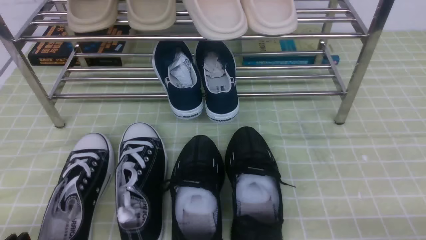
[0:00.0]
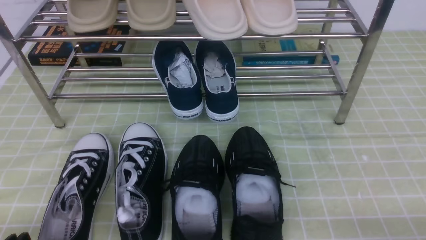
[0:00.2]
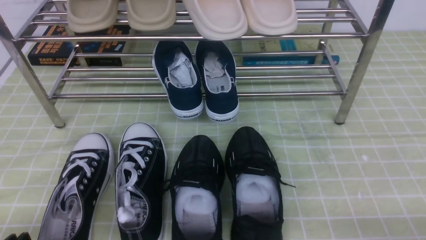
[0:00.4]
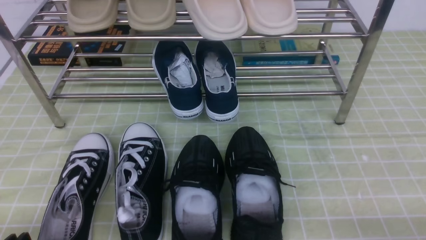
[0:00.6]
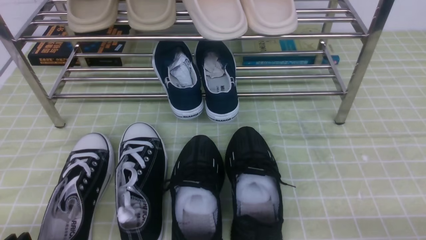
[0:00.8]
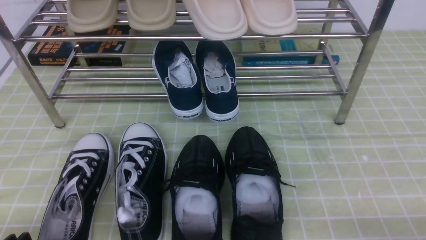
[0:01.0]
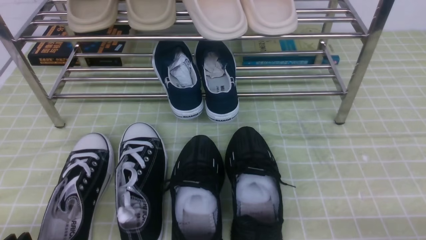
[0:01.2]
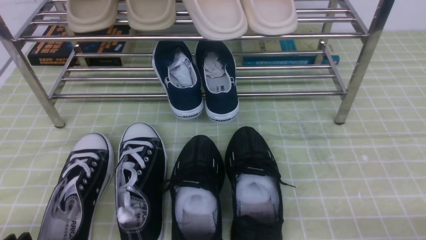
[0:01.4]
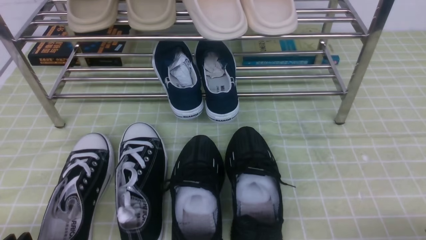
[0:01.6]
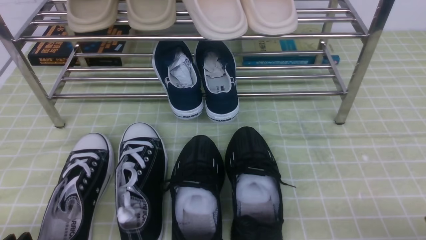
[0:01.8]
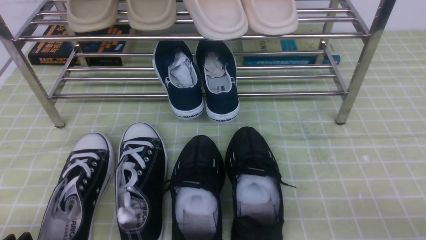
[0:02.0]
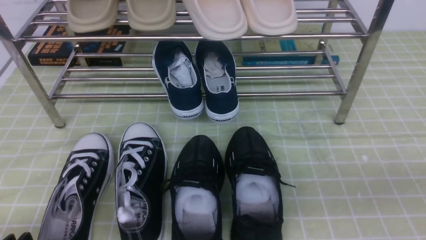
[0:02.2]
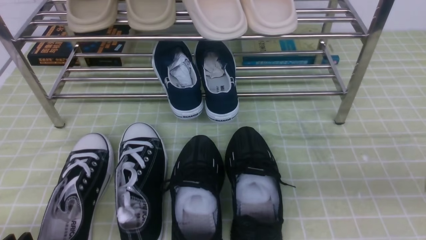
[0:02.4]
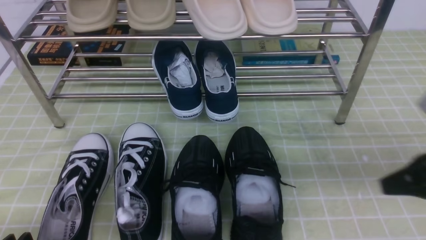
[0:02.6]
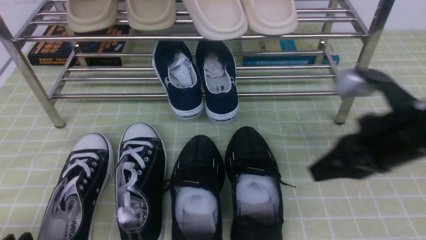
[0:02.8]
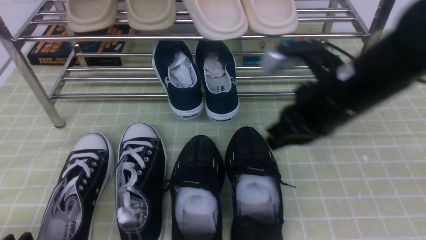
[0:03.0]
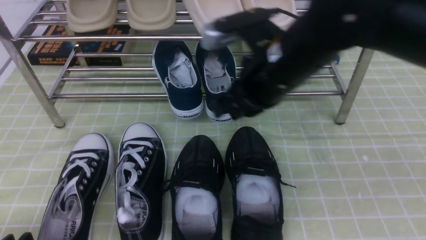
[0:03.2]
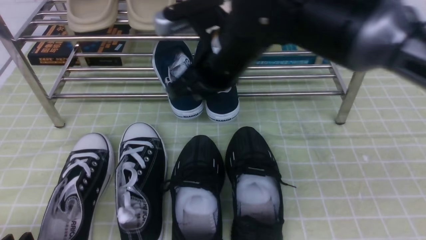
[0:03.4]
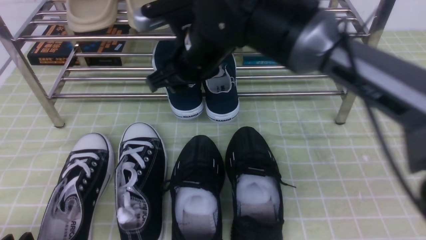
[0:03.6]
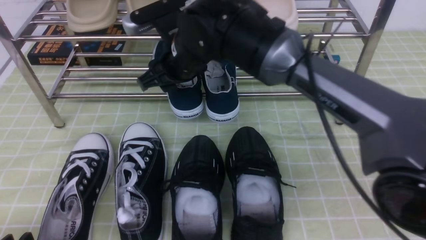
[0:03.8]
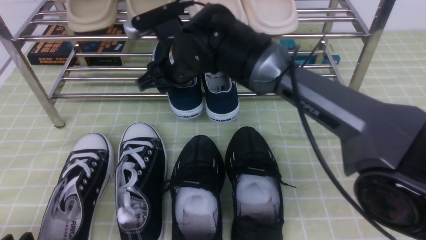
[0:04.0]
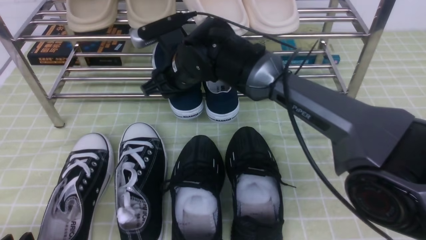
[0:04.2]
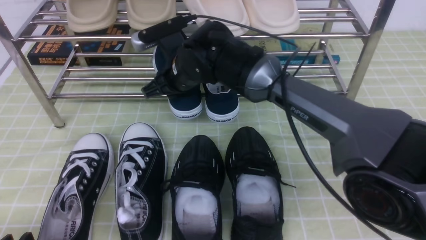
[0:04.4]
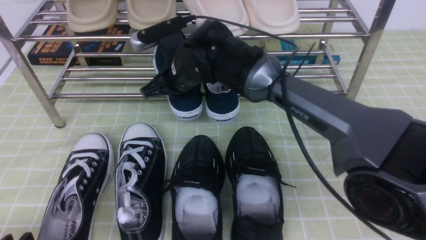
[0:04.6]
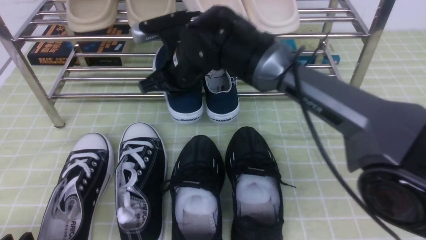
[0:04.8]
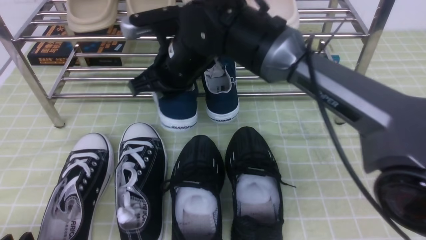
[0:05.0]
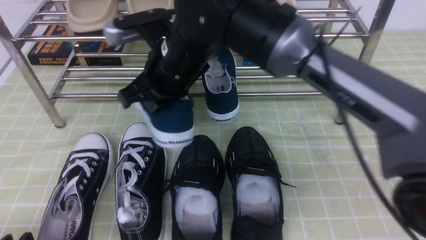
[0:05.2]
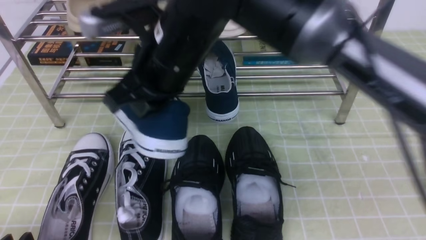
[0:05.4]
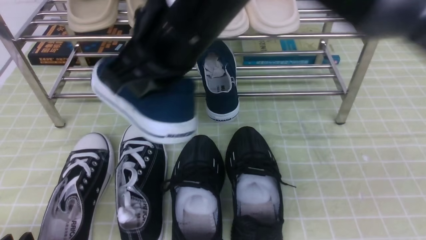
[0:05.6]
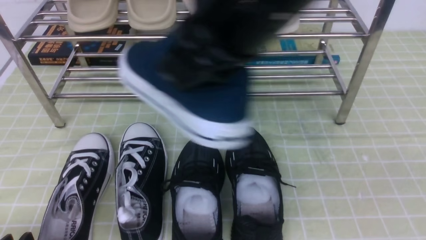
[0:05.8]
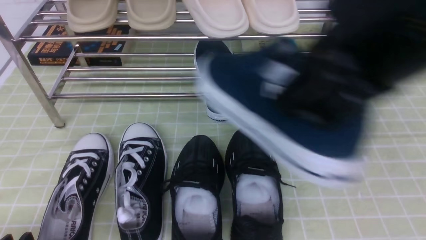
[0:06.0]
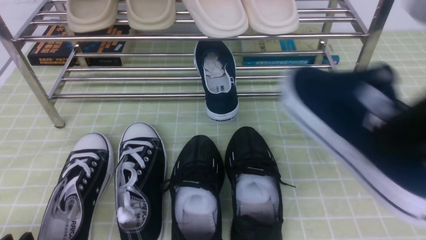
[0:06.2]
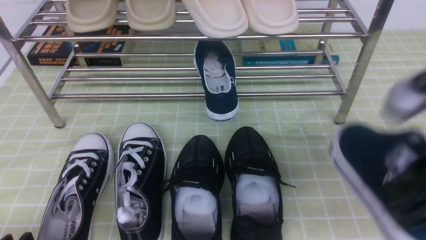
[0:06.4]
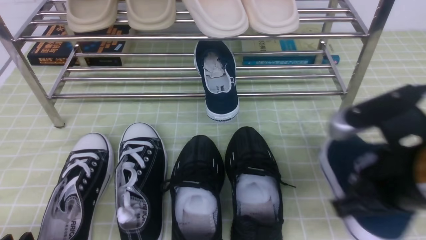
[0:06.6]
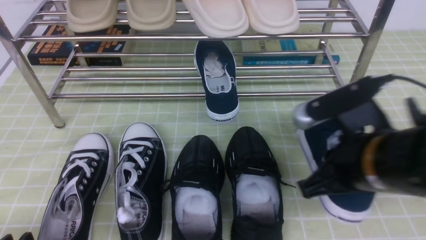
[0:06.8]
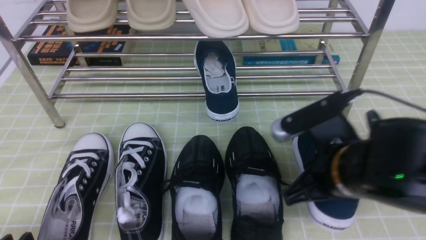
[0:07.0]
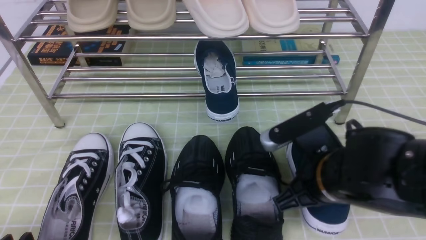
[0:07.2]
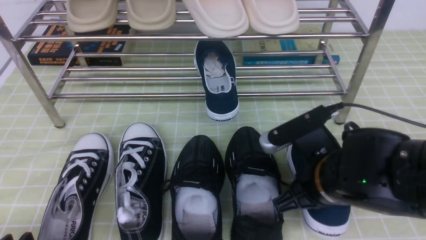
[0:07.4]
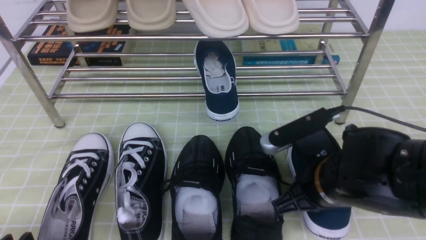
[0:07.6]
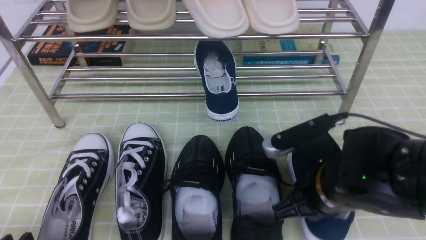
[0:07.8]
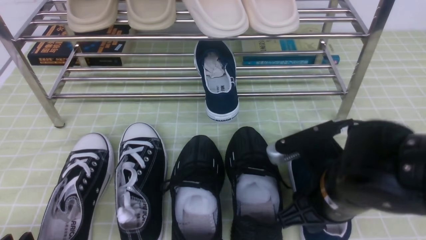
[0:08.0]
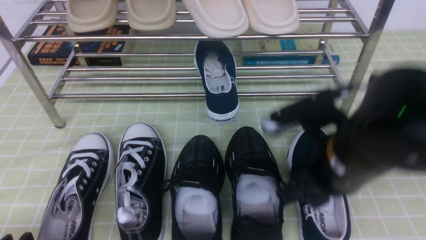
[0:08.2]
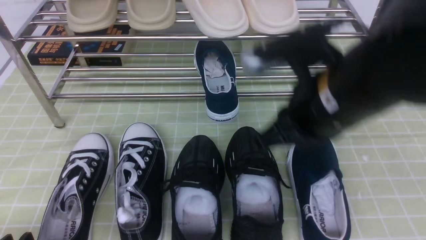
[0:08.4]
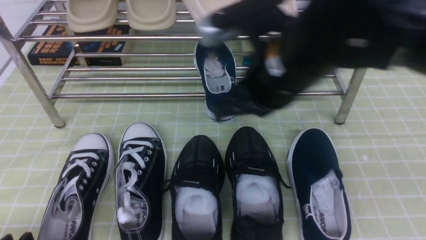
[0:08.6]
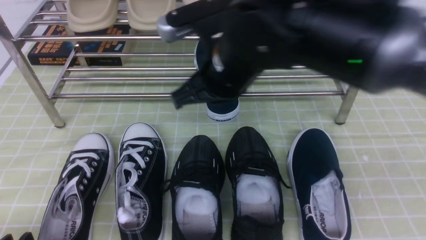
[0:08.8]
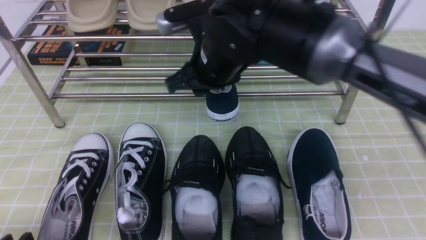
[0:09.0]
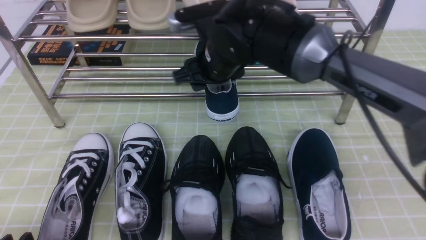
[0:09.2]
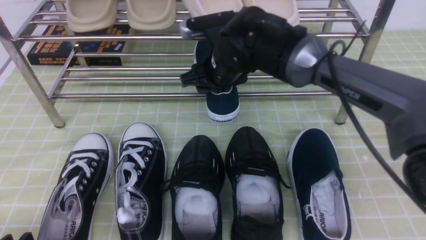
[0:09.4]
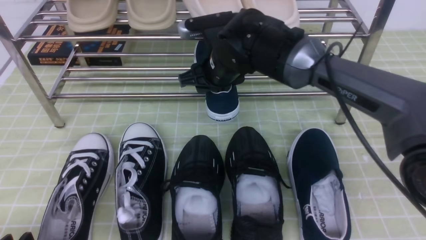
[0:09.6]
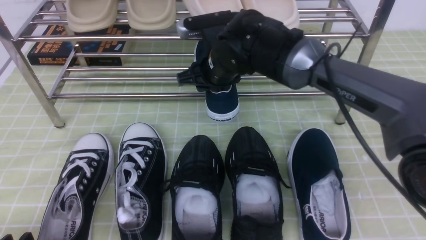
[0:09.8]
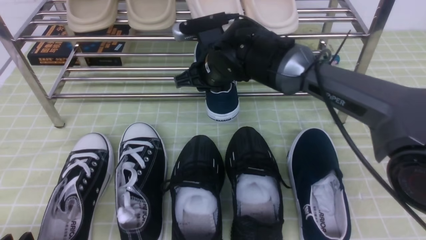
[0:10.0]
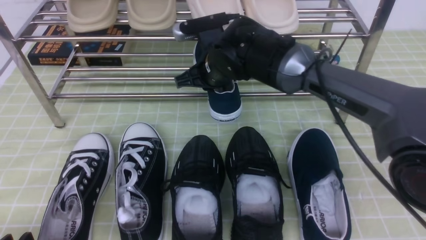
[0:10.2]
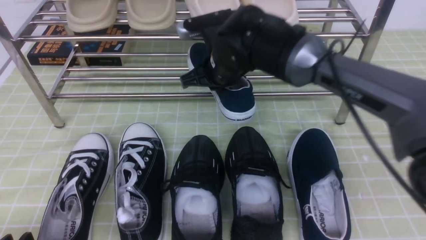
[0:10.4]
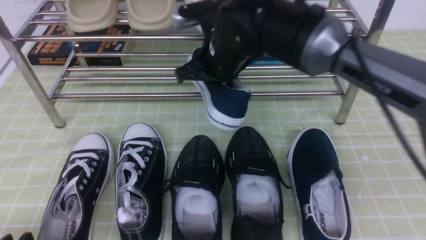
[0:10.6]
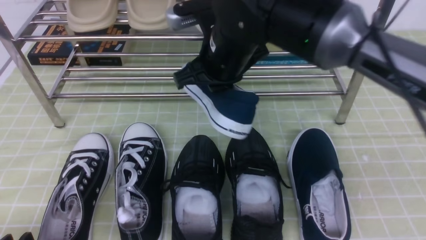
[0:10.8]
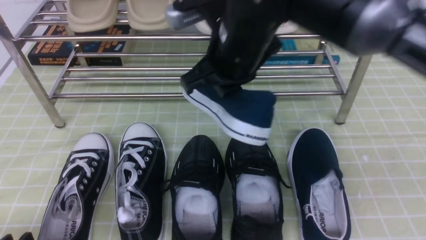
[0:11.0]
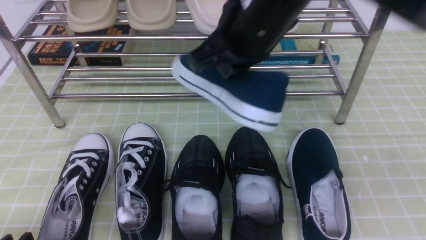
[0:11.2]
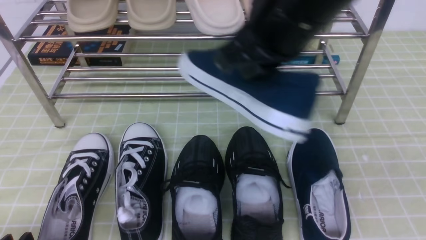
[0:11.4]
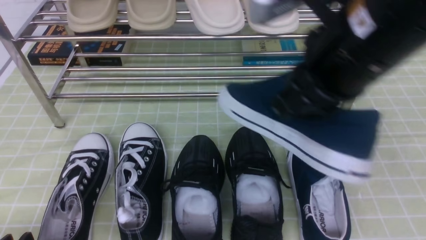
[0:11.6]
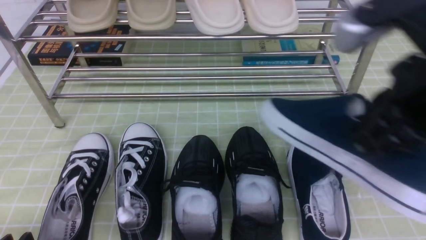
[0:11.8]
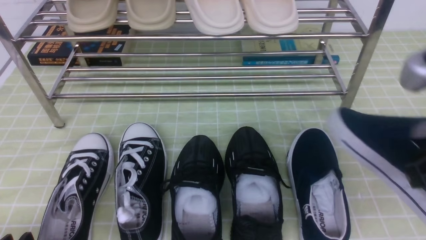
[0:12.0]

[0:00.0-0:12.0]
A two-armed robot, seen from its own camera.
Step, 0:00.0 to 0:04.8: use the right arm to clamp a shoe in the middle of the shoe rack.
Step, 0:05.0 to 0:08.2: use the right arm to take out the clamped shoe from the shoe rack and put it down.
Step, 0:08.4 to 0:10.2: use the right arm to clamp a shoe in the middle of the shoe rack.
0:01.6 to 0:03.0: The right gripper goes approximately 30 cm forward, to the left and upward, and closes; the left gripper opens its fingers.
0:03.0 to 0:04.4: The right gripper travels to the left and forward by some 25 cm, and opens its fingers.
0:04.4 to 0:06.0: The right gripper shifts some 35 cm backward, upward and to the right, and closes up.
0:06.0 to 0:07.6: The right gripper moves downward, roughly 25 cm.
0:07.6 to 0:09.0: The right gripper shifts approximately 20 cm forward, to the left and upward.
0:09.0 to 0:10.4: The right gripper goes approximately 10 cm forward and downward, and closes up.
0:10.4 to 0:12.0: The right gripper moves backward, to the right and upward, about 35 cm.

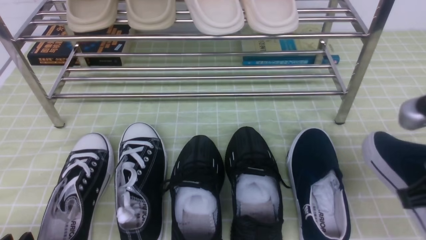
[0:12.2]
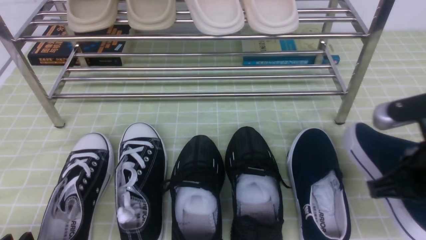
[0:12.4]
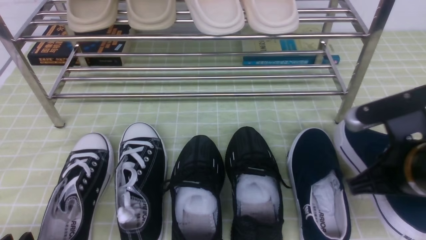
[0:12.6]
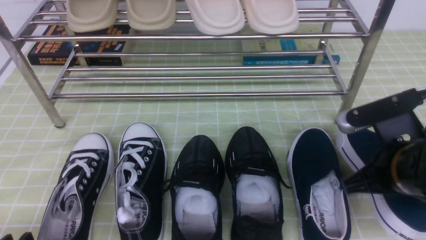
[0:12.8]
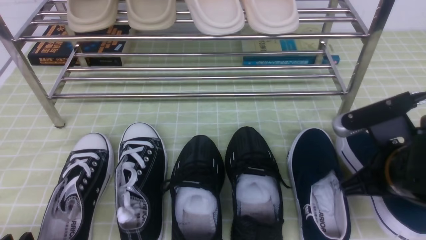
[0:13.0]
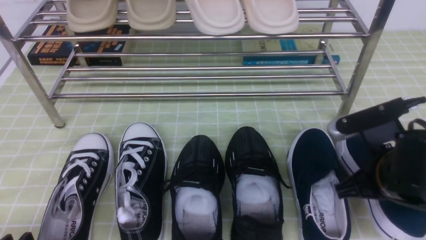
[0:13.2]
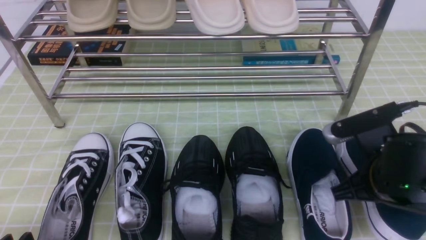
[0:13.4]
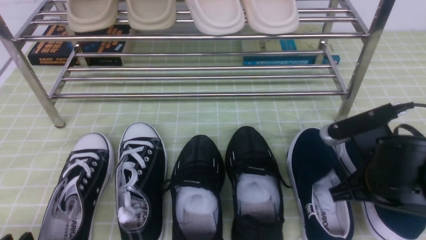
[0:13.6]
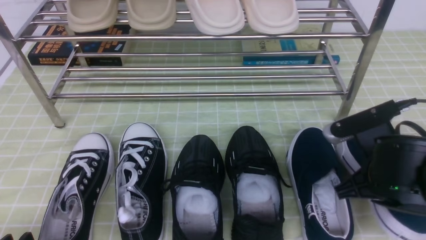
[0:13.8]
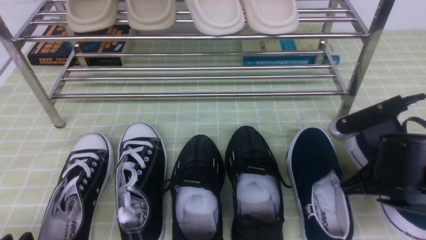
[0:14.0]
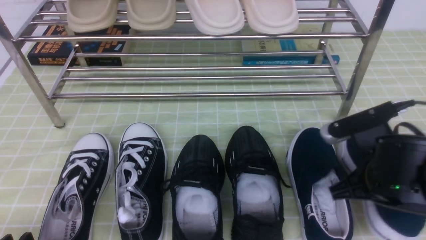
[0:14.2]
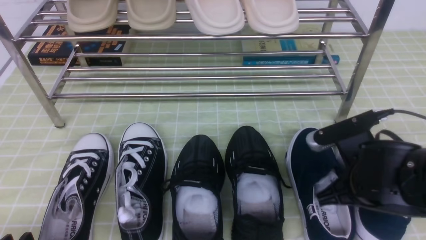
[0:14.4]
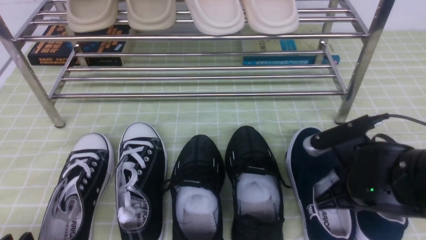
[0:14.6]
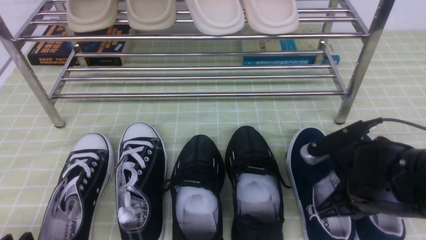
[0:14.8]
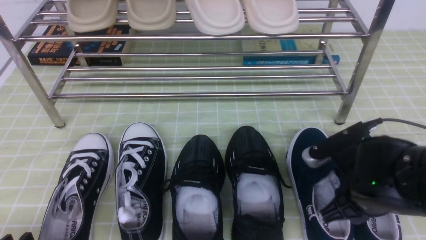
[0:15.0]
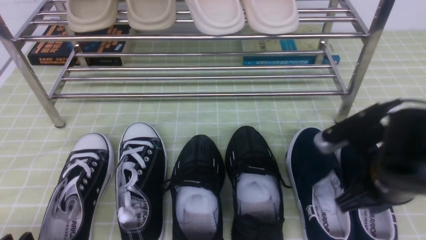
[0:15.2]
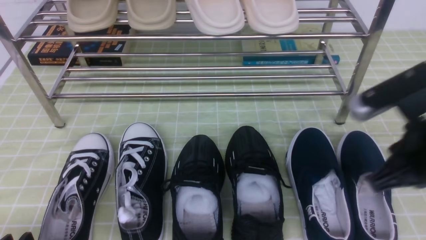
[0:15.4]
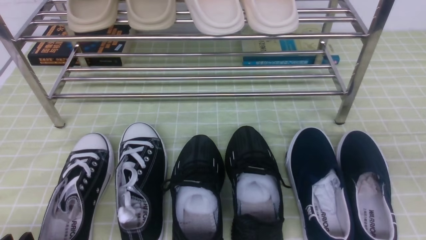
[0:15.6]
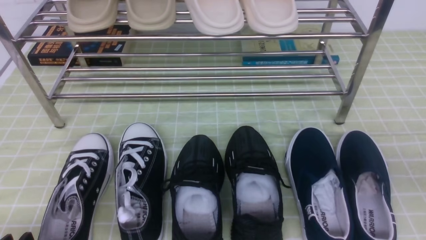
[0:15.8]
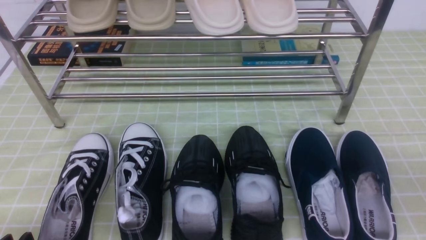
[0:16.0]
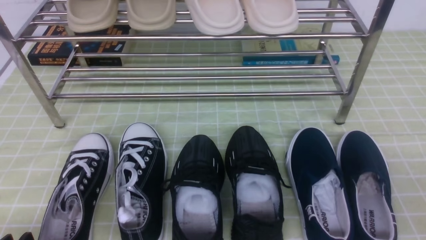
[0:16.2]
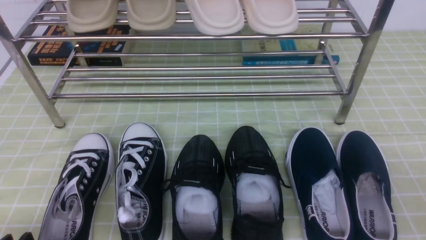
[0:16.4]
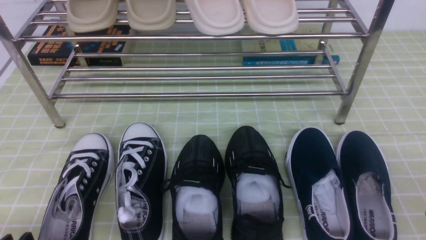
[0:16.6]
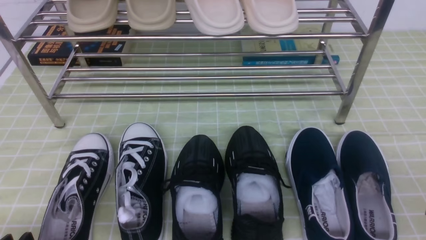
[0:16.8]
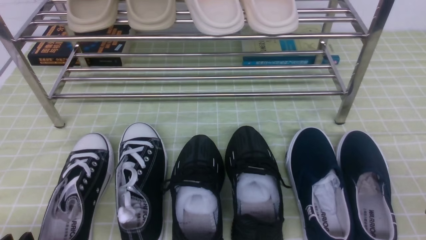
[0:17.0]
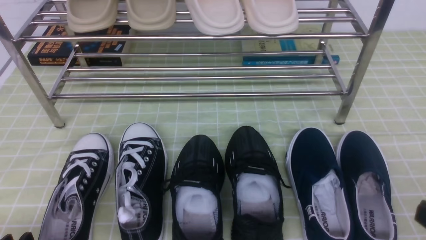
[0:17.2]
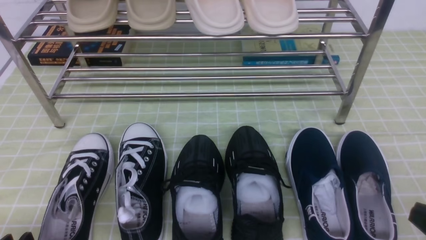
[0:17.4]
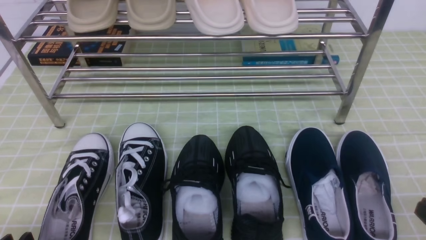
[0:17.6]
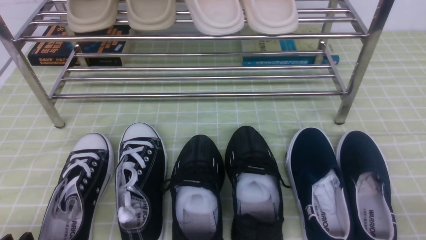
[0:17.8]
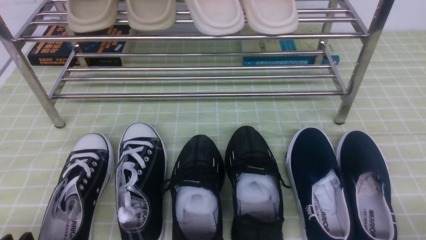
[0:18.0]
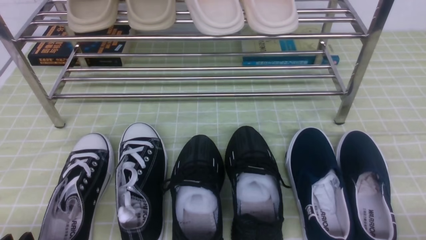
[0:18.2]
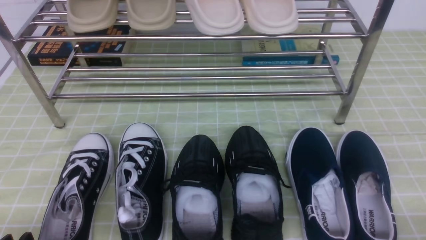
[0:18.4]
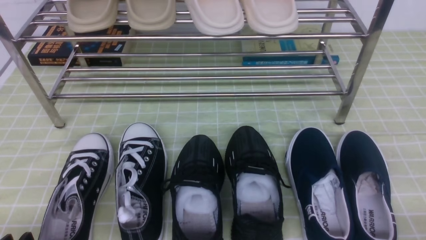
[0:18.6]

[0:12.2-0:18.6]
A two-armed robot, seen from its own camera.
Step, 0:12.2 to 0:15.2: use the right arm to take out the clamped shoe from the shoe rack and put it down.
0:12.2 to 0:13.8: The right gripper goes some 15 cm downward and forward.
0:13.8 to 0:15.4: The right gripper goes about 5 cm upward, and opens.
0:15.4 to 0:17.0: The right gripper goes roughly 15 cm backward and to the right, and closes up.
0:17.0 to 0:18.6: The right gripper goes roughly 10 cm downward.
